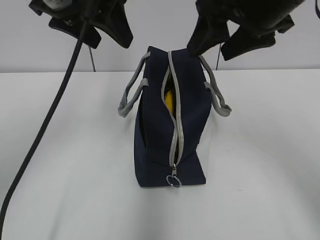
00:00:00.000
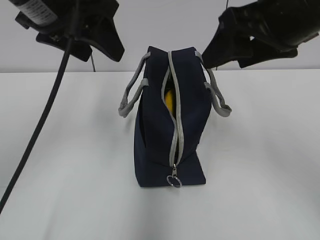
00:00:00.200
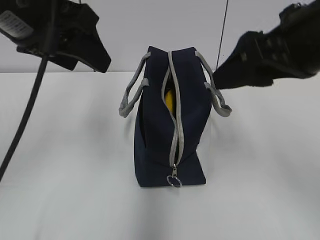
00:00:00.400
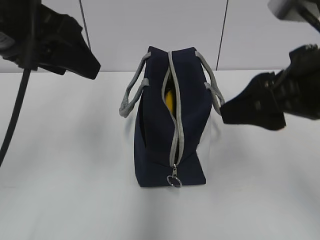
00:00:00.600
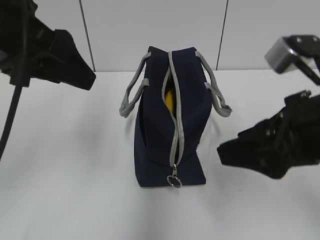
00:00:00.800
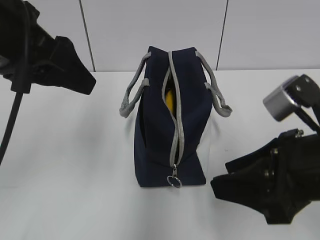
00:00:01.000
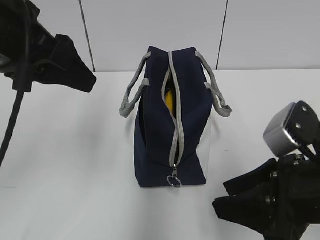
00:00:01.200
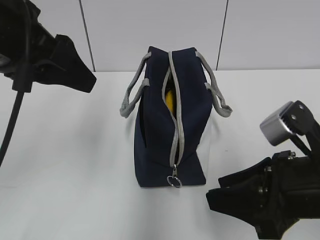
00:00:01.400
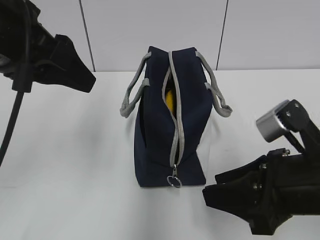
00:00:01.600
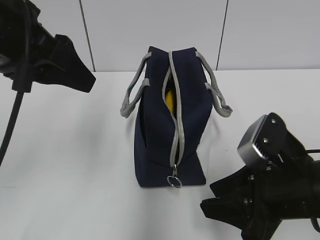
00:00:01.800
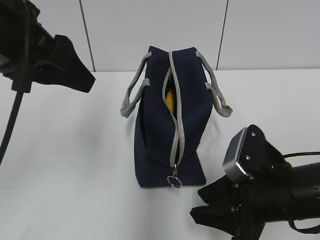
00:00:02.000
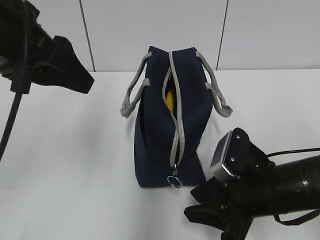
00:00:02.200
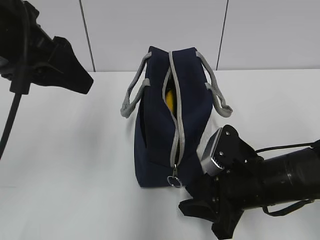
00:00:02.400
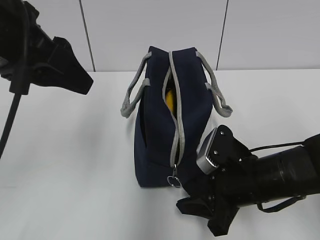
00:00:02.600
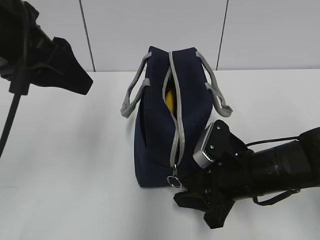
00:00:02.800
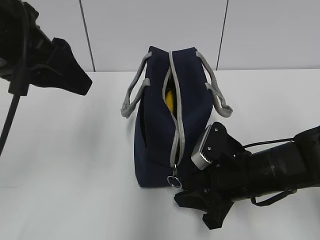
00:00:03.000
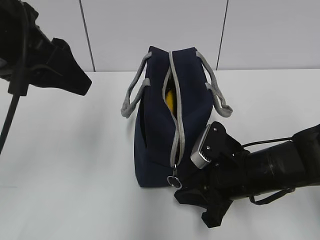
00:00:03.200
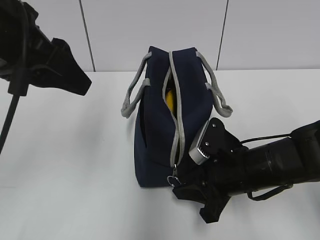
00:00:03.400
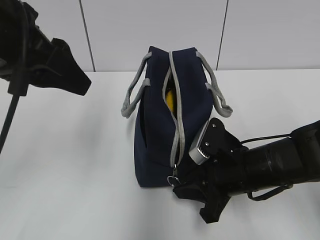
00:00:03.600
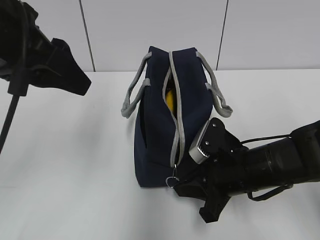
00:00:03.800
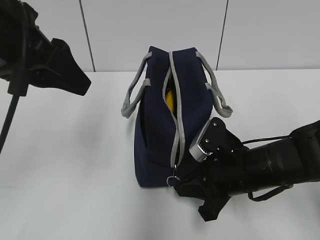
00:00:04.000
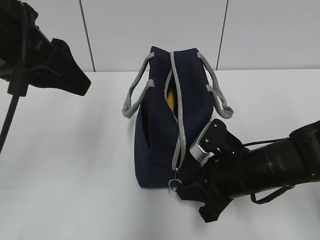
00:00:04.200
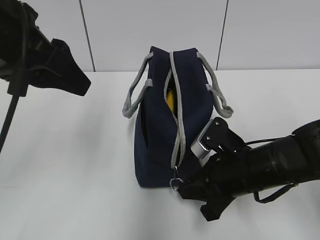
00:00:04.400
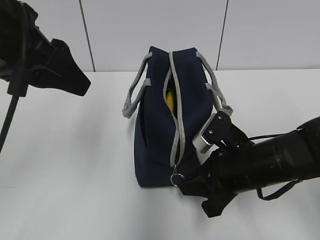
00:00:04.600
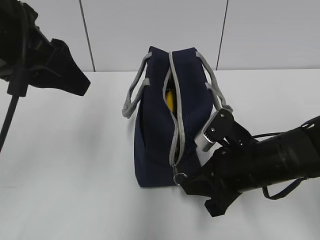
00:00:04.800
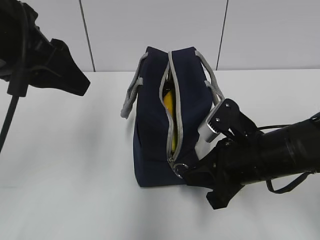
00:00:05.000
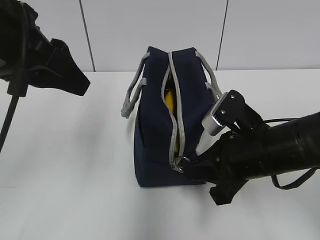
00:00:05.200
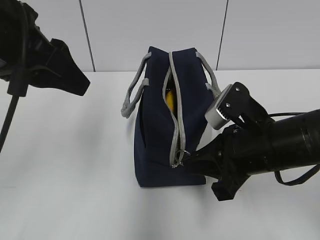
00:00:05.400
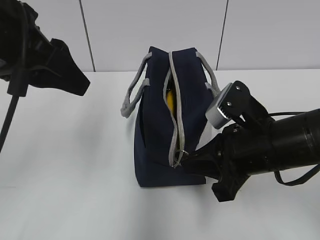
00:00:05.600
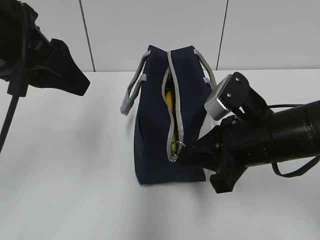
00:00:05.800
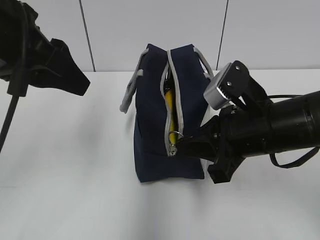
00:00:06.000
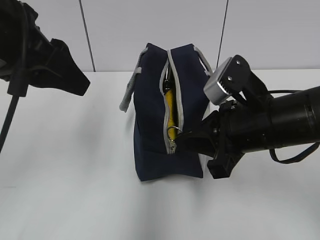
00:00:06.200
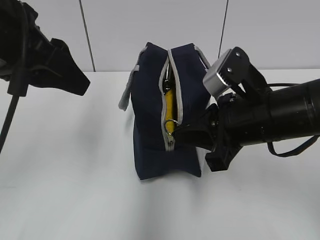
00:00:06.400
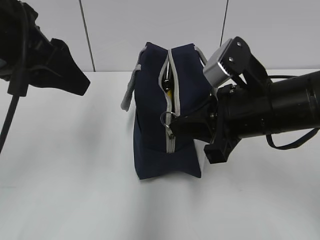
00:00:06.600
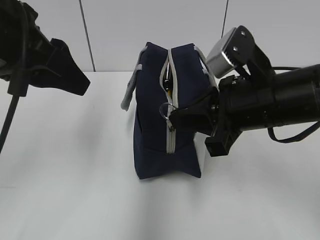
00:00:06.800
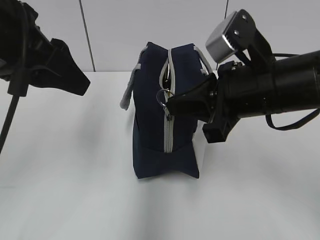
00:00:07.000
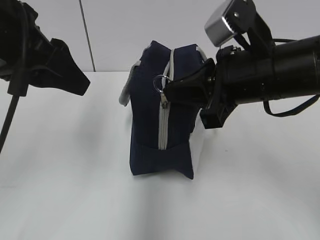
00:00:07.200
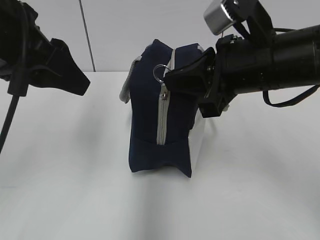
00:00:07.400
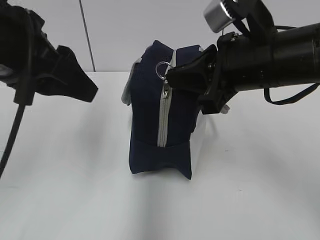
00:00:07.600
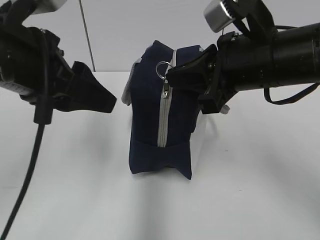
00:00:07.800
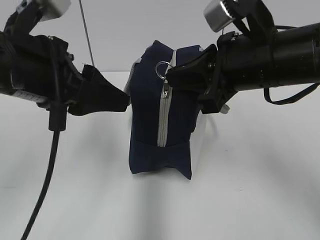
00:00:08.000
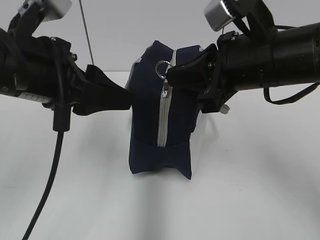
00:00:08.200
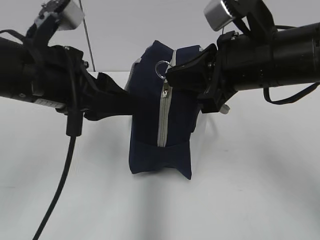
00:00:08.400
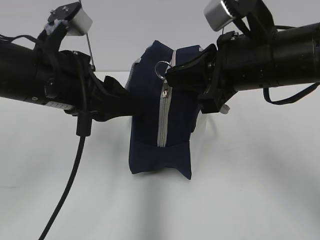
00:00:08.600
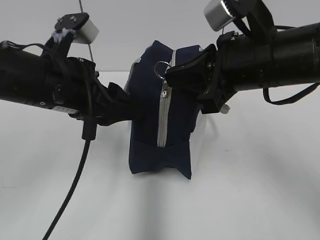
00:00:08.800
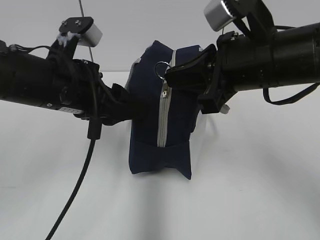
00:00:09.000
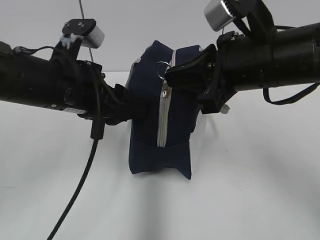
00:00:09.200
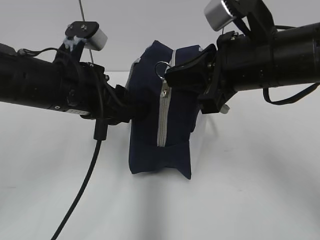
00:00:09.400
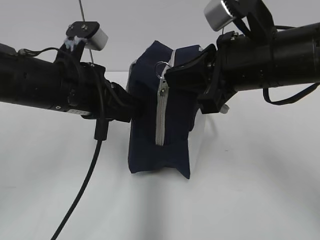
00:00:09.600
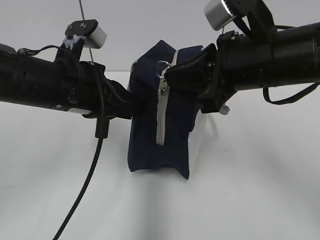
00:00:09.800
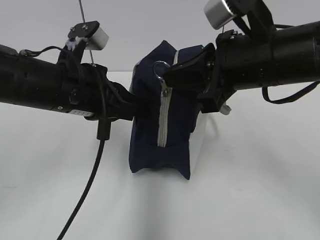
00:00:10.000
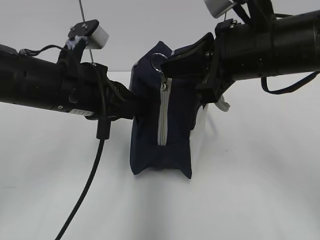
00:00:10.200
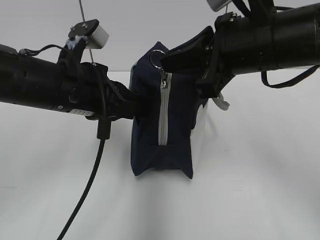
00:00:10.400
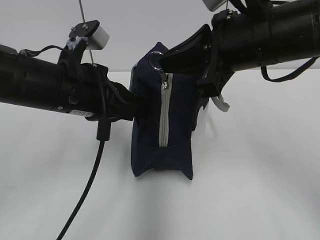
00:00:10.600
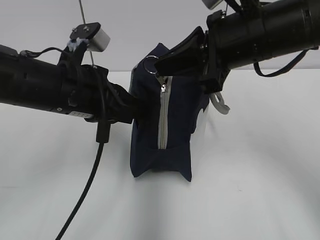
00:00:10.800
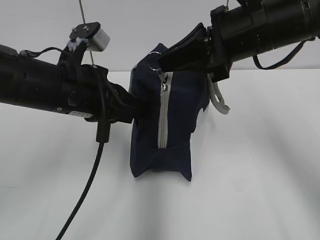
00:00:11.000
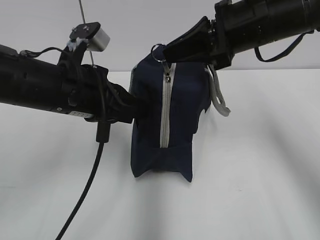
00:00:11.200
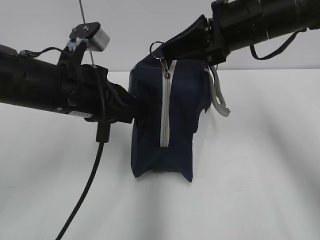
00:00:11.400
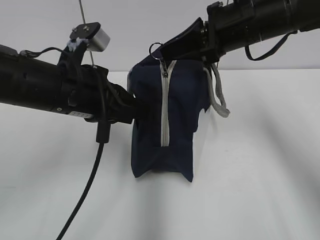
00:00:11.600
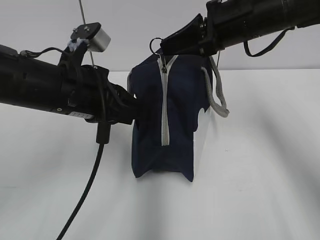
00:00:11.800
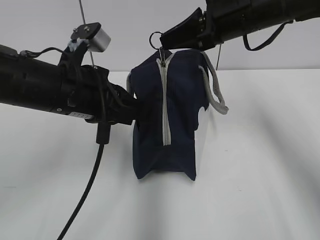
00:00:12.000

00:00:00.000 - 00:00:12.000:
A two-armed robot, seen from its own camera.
Step, 00:00:00.000 - 00:00:09.400: Grab the lunch bag with your left hand.
00:00:00.000 - 00:00:01.600: The right gripper travels downward and backward by approximately 20 cm, and closes its fingers, while the left gripper is displaced backward by approximately 10 cm.
00:00:01.600 - 00:00:03.000: The right gripper travels downward and forward by approximately 10 cm.
00:00:03.000 - 00:00:04.400: The right gripper closes.
00:00:04.400 - 00:00:06.000: The right gripper moves upward, some 10 cm.
00:00:06.000 - 00:00:07.600: The right gripper goes some 10 cm upward.
00:00:07.600 - 00:00:09.000: The left gripper moves downward, some 10 cm.
00:00:09.000 - 00:00:10.400: The left gripper closes.
00:00:10.400 - 00:00:12.000: The right gripper is displaced forward by roughly 10 cm.

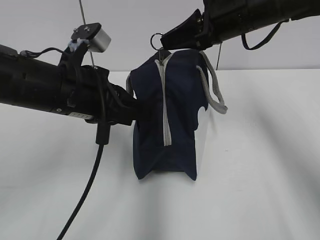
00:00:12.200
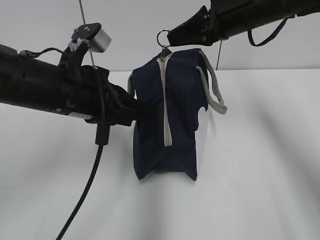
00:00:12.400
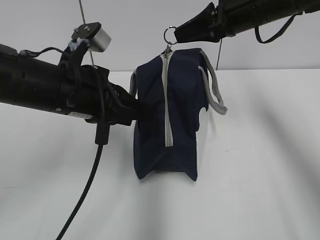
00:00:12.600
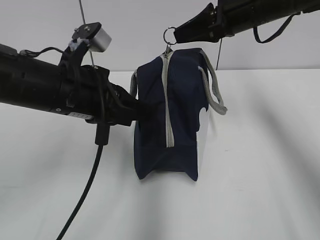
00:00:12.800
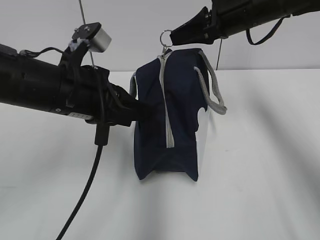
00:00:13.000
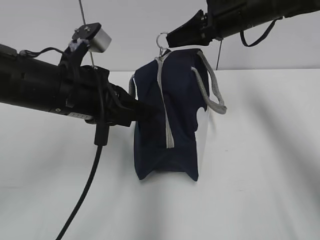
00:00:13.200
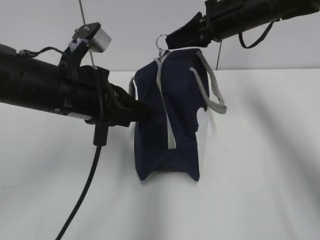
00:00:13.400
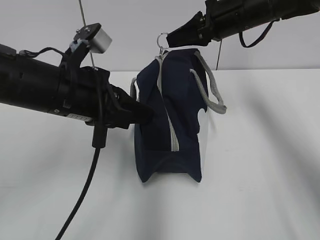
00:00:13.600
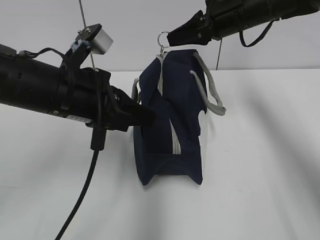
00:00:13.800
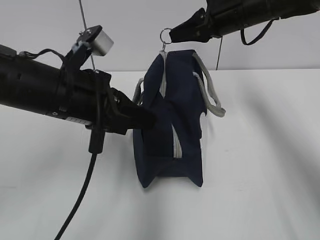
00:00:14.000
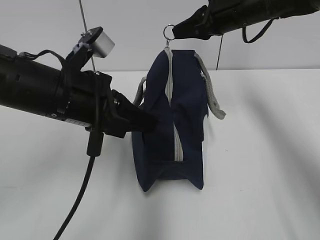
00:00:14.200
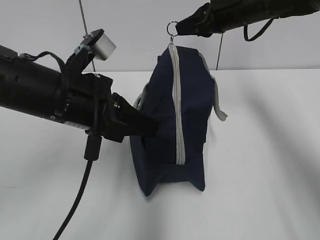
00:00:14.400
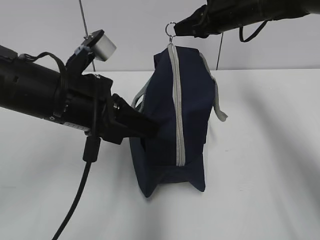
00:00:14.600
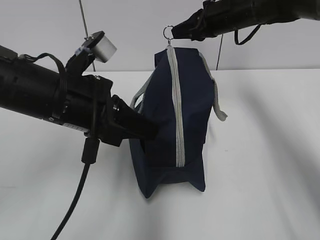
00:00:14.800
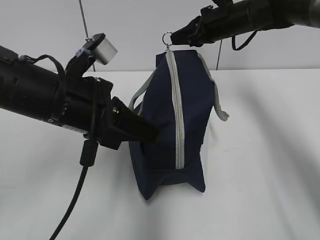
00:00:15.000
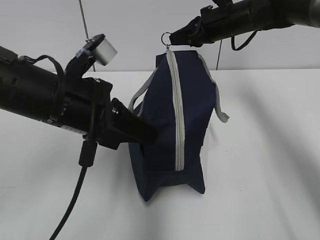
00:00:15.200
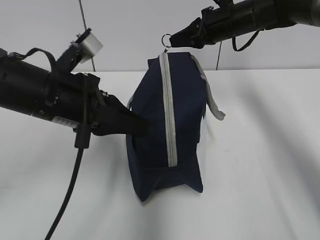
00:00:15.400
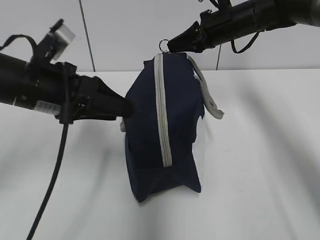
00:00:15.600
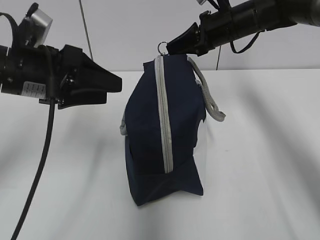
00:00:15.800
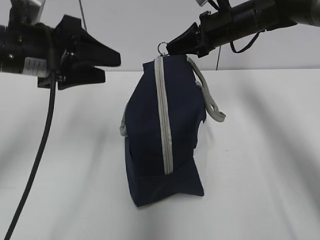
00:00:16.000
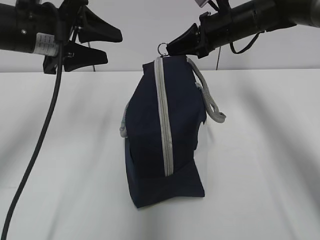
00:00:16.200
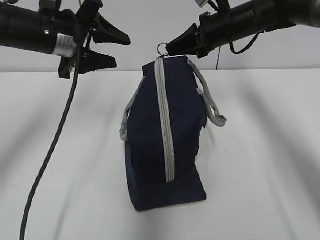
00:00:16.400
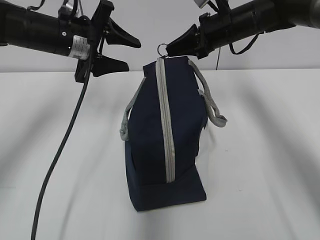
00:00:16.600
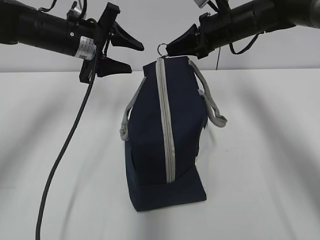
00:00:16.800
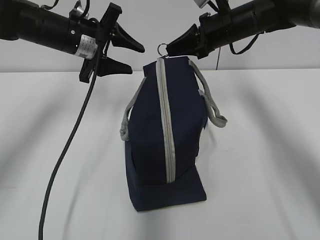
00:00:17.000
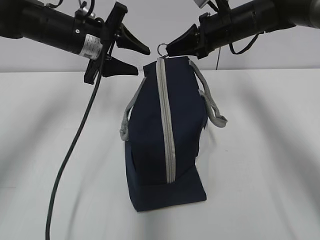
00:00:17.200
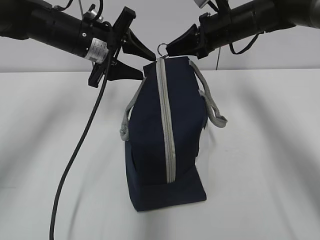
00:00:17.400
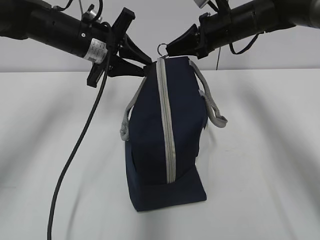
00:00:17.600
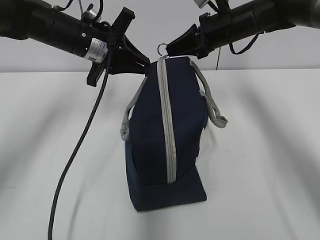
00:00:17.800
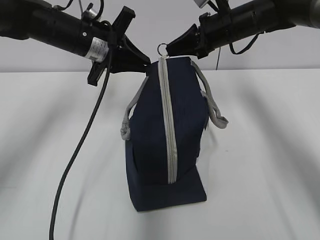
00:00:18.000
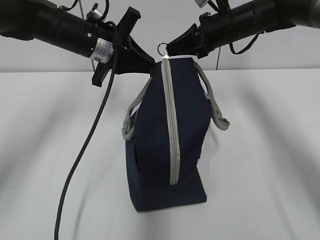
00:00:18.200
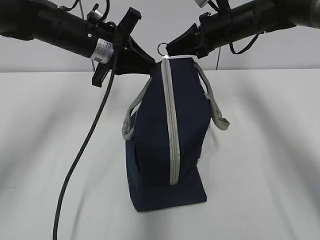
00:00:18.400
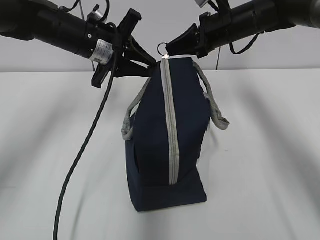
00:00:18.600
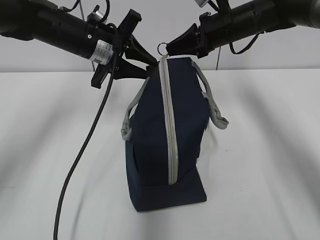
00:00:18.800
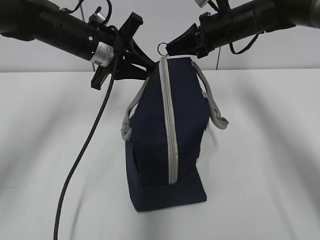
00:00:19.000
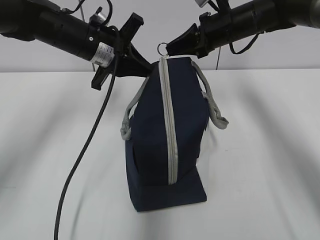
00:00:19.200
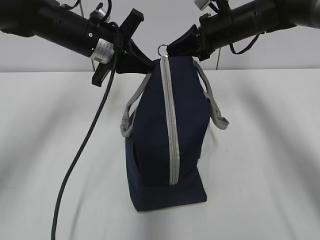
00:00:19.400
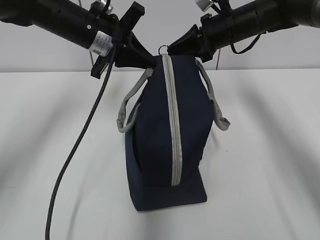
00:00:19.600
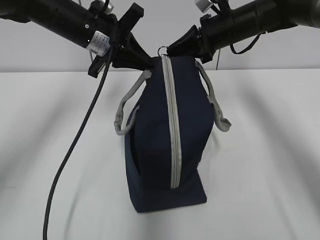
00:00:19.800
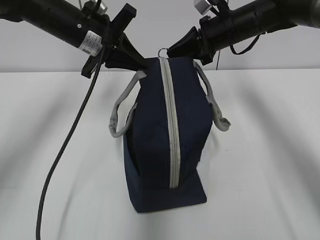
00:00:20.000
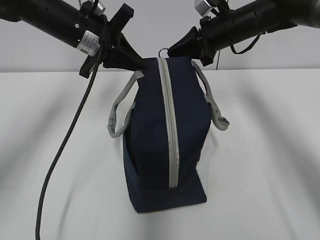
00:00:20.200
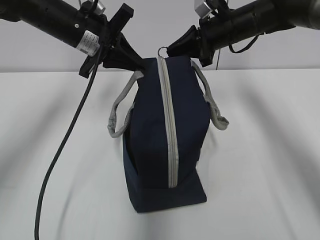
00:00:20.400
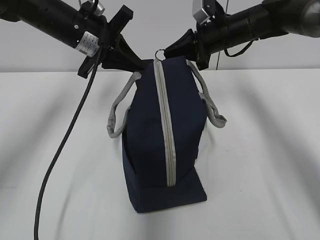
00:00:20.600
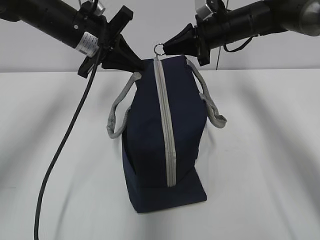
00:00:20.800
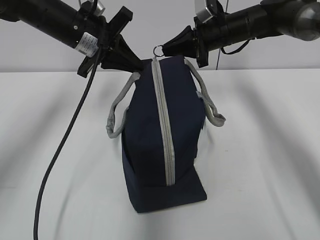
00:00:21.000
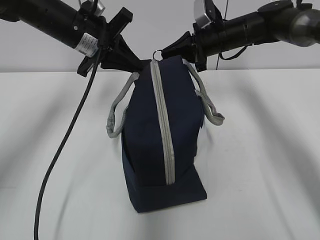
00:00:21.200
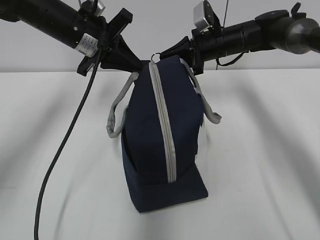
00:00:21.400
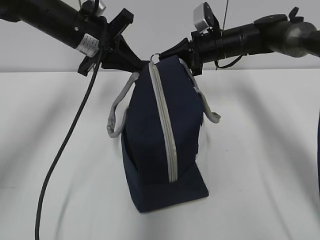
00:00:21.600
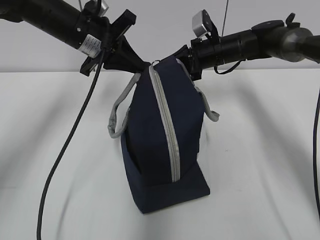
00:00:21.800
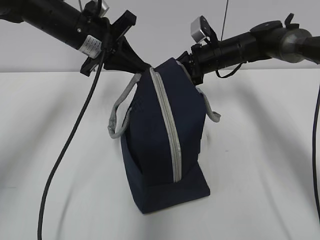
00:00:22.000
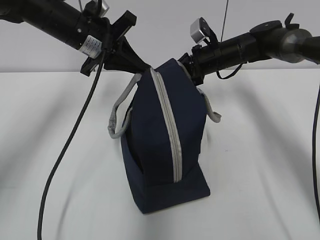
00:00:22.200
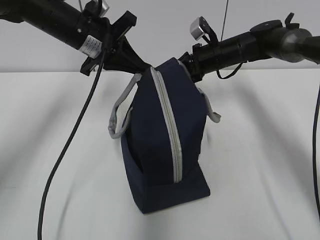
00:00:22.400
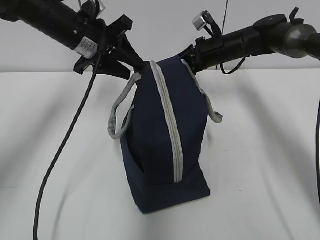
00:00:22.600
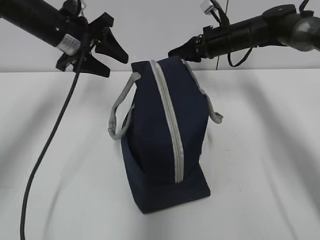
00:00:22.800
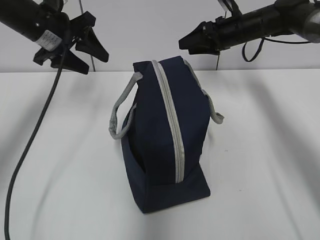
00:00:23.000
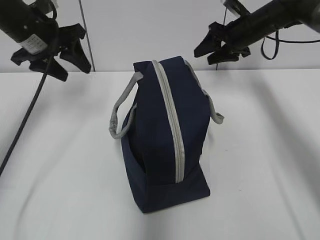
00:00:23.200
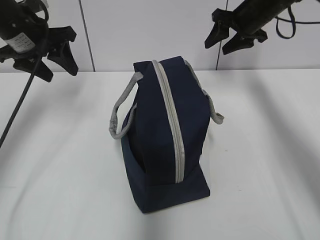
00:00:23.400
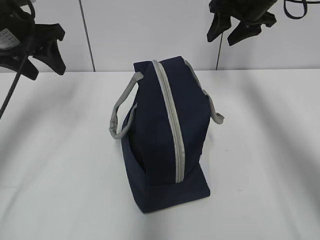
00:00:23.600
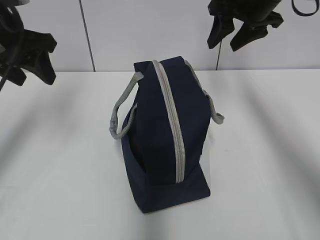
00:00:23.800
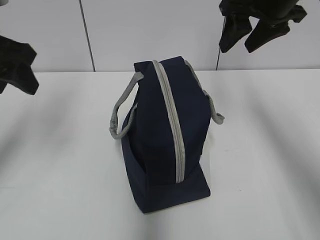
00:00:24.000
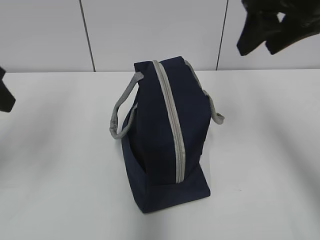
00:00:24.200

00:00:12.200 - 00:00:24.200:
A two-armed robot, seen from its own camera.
Step, 00:00:12.200 - 00:00:22.400: Pull the zipper with your right hand.
00:00:12.200 - 00:00:13.800: The right gripper shifts about 5 cm forward.
00:00:13.800 - 00:00:15.200: The right gripper heads forward, covering about 5 cm.
00:00:15.200 - 00:00:16.600: The left gripper goes approximately 15 cm forward, and opens.
00:00:16.600 - 00:00:18.200: The left gripper closes up.
00:00:18.200 - 00:00:21.200: The grippers make only small movements.
00:00:21.200 - 00:00:22.600: The right gripper opens, while the left gripper opens up.
00:00:22.600 - 00:00:24.200: The left gripper shifts roughly 20 cm backward and to the left. The right gripper travels backward and upward by approximately 30 cm.
